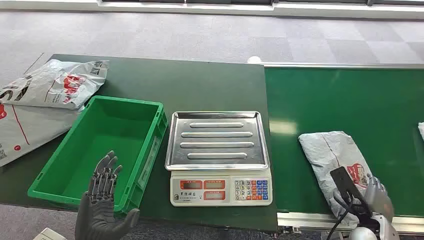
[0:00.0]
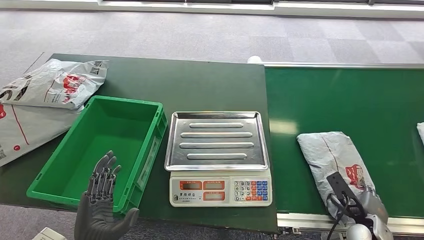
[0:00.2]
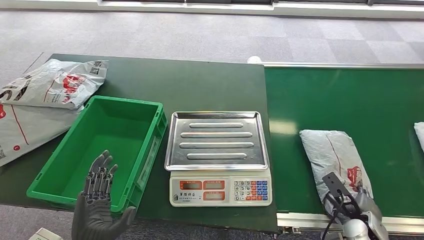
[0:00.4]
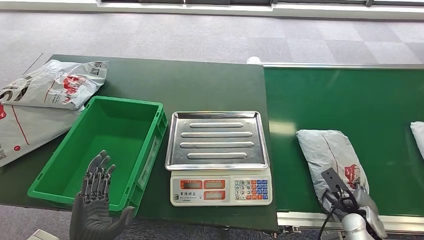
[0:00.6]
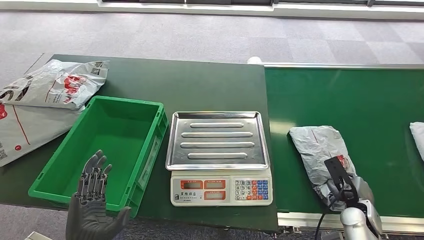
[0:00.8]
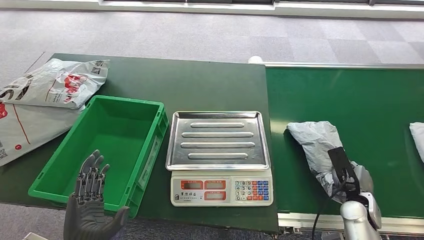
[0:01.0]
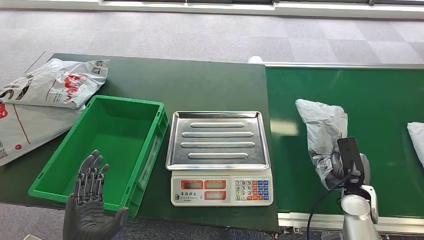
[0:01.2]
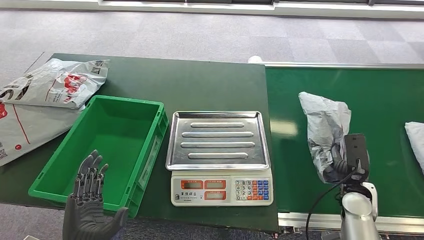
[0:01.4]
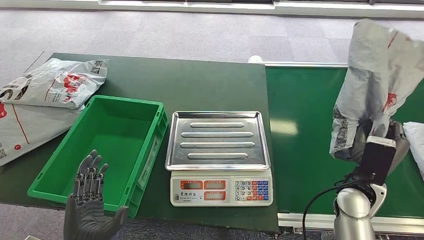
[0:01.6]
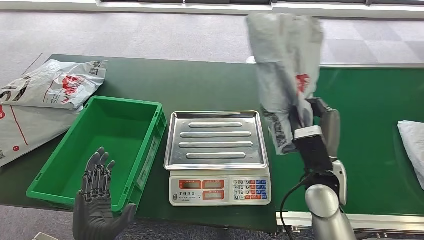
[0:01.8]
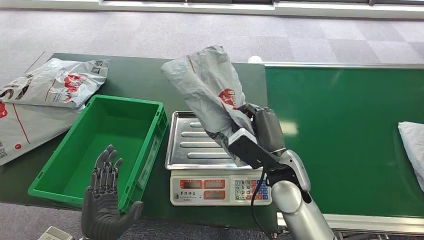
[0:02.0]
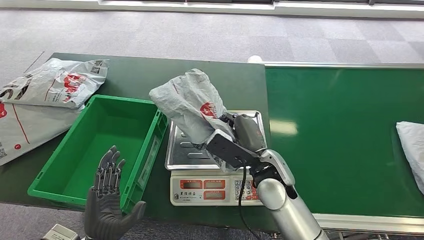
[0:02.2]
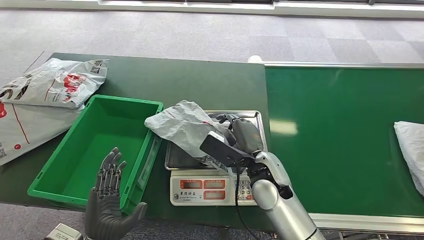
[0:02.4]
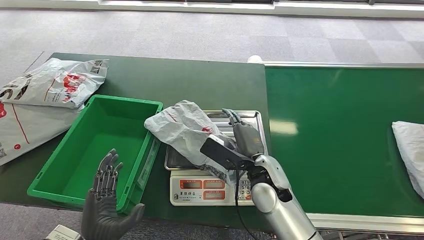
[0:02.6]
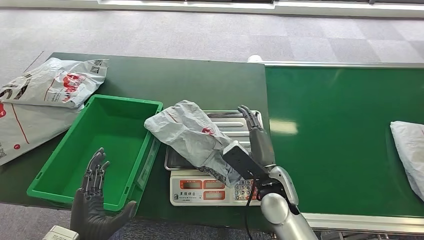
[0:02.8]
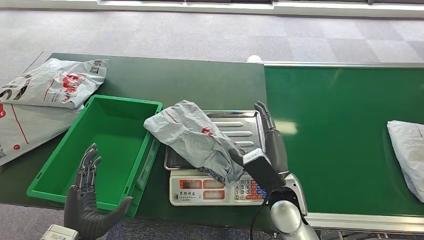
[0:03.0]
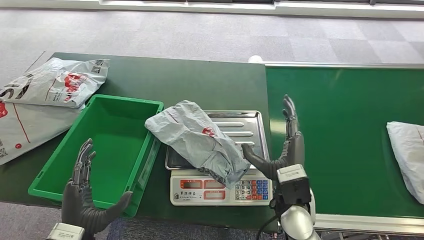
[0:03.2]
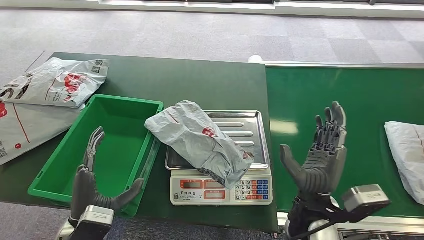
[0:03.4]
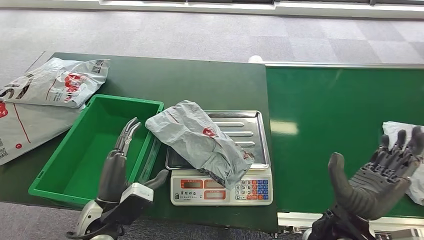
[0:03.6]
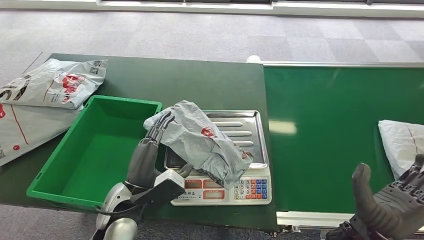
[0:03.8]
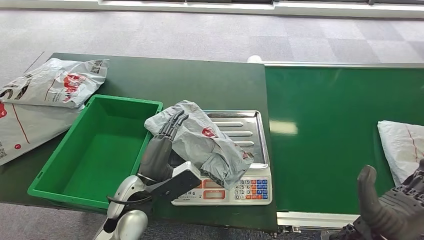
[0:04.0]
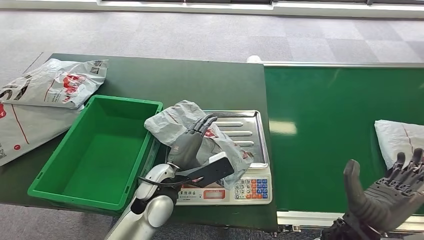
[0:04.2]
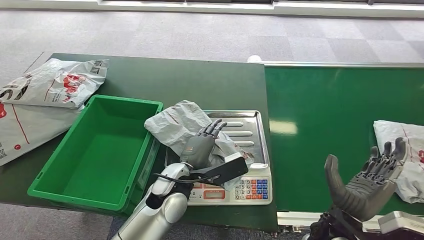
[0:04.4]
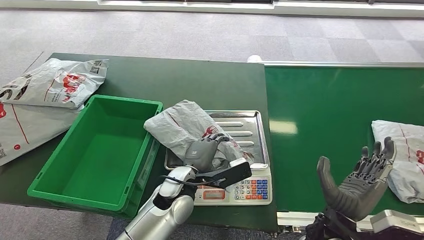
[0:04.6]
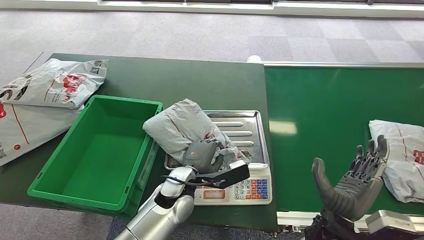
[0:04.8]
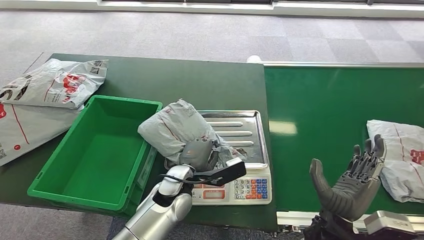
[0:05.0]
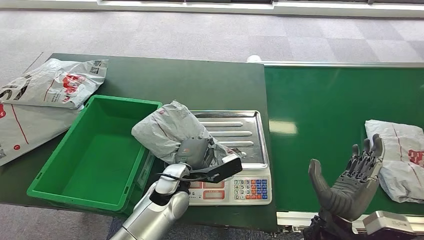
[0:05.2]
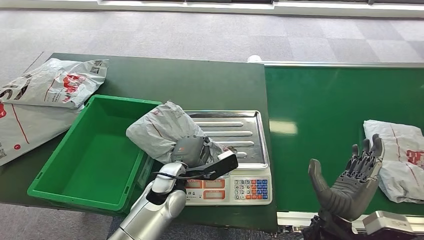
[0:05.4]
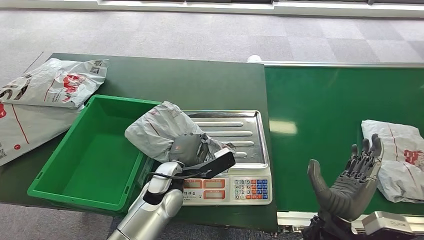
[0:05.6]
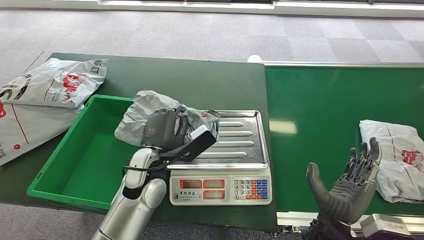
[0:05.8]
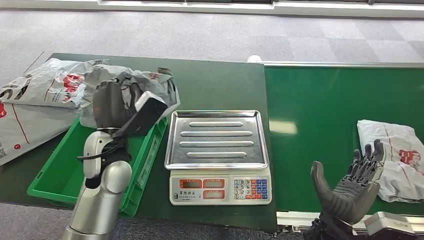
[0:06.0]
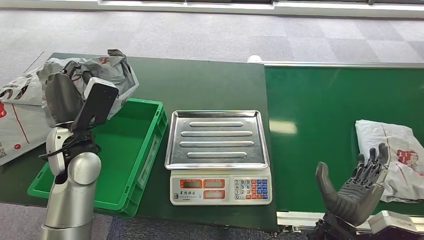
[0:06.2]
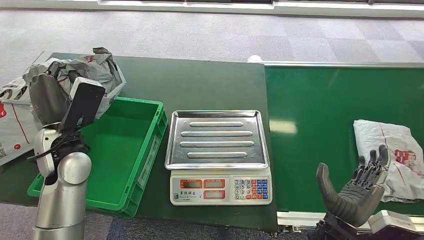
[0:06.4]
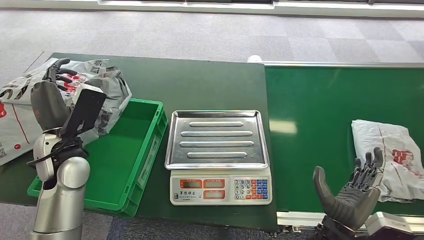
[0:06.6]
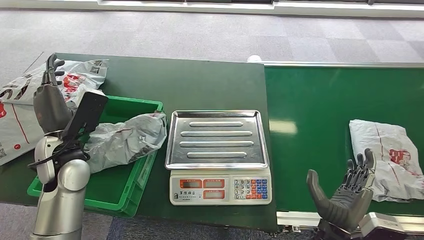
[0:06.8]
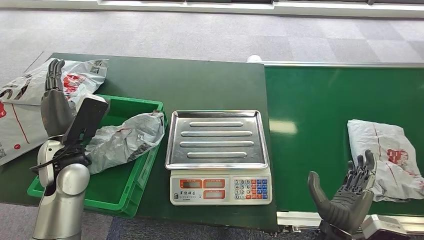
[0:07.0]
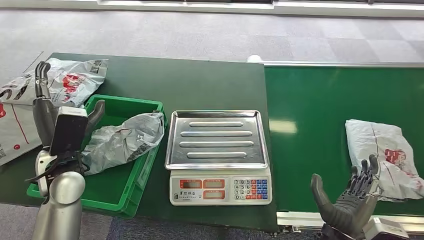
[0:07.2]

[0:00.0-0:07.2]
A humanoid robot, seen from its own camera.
Step, 0:00.0 to 0:01.4: Pick up the package from the conveyor belt.
Step, 0:01.6 to 0:02.6: Place the package onto the inbound machine.
Step, 0:02.8 to 0:06.0: Pick up the package from the inbound machine.
Step, 0:06.2 to 0:07.0: Place the package into the parcel locker.
0:02.8 to 0:04.4: The right hand moves backward and to the right, roughly 15 cm. Meanwhile the left hand travels to the right and forward by approximately 25 cm.
0:04.4 to 0:05.8: The left hand moves to the left, about 5 cm.
